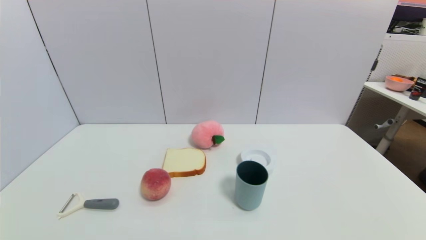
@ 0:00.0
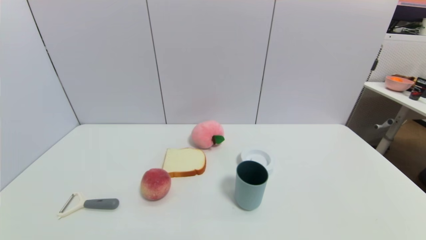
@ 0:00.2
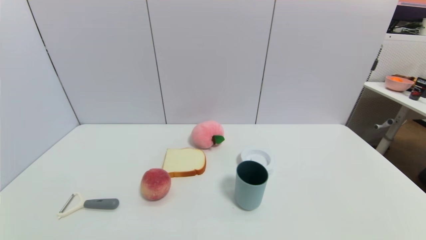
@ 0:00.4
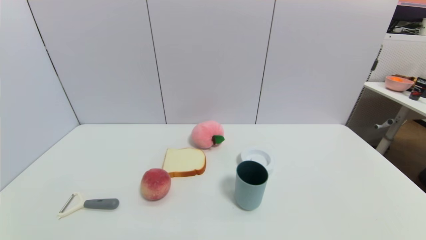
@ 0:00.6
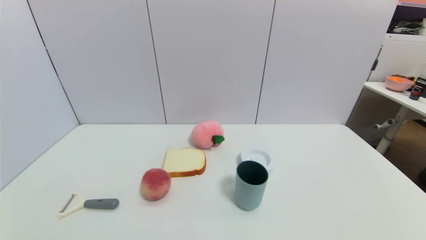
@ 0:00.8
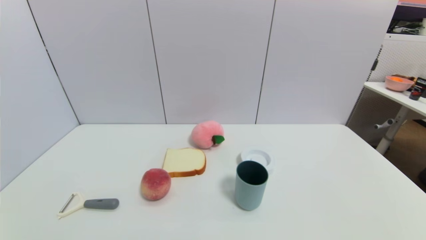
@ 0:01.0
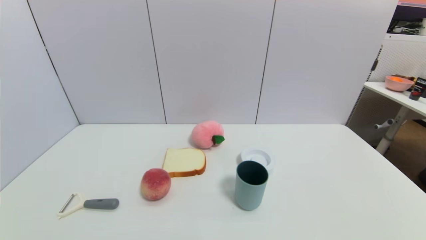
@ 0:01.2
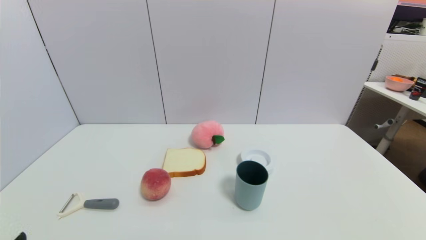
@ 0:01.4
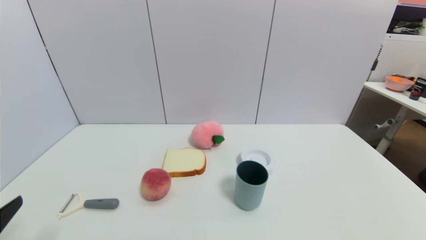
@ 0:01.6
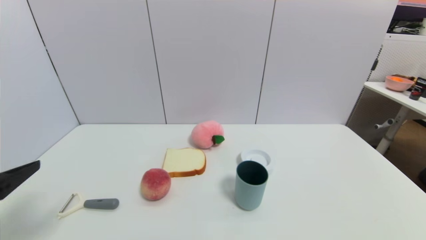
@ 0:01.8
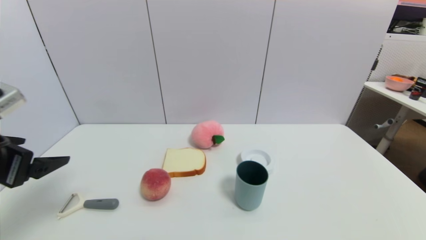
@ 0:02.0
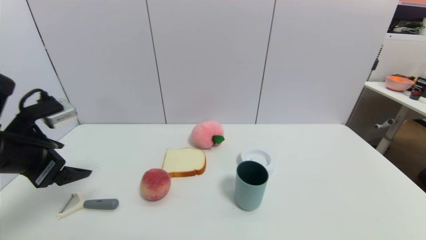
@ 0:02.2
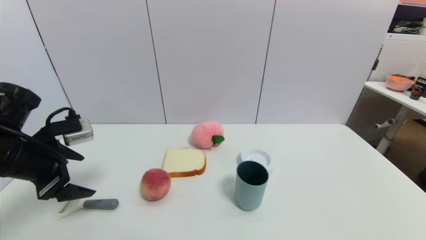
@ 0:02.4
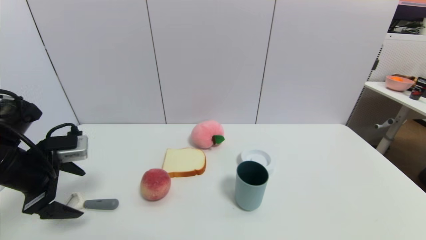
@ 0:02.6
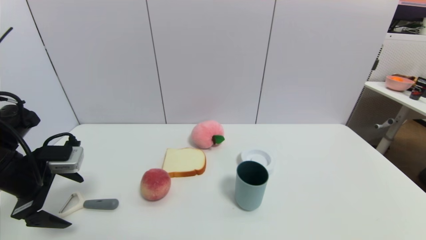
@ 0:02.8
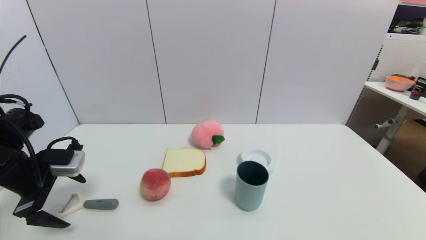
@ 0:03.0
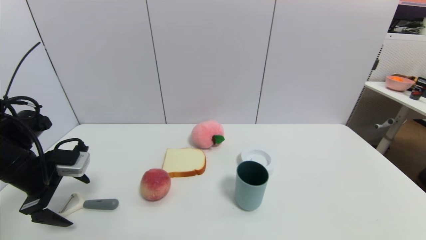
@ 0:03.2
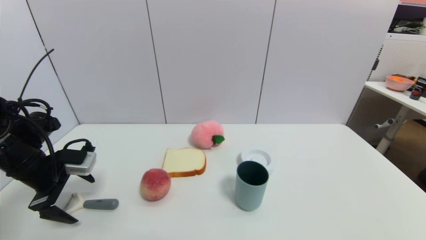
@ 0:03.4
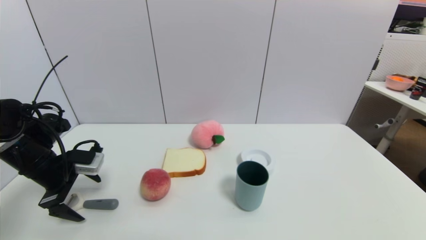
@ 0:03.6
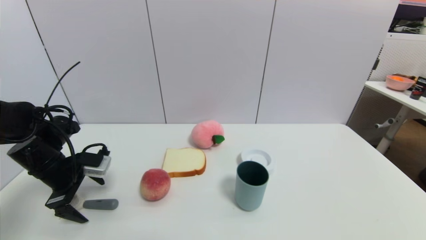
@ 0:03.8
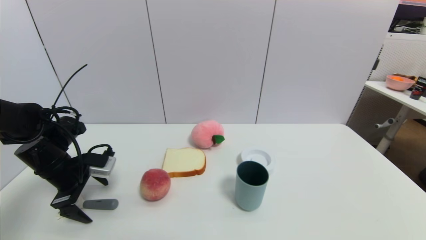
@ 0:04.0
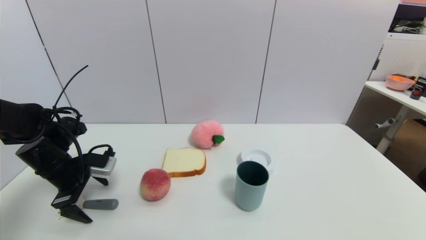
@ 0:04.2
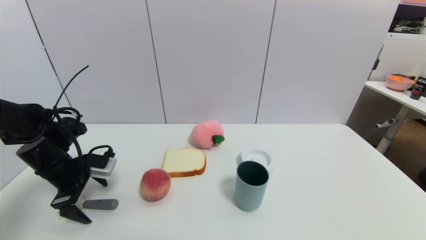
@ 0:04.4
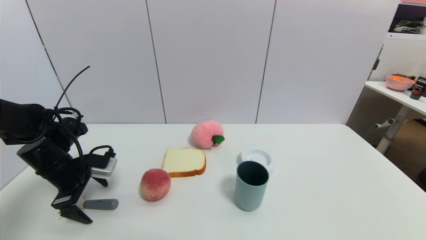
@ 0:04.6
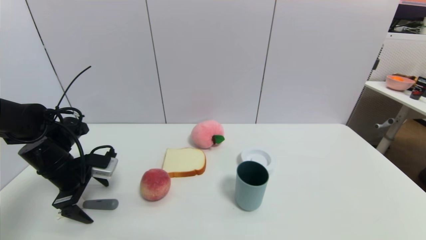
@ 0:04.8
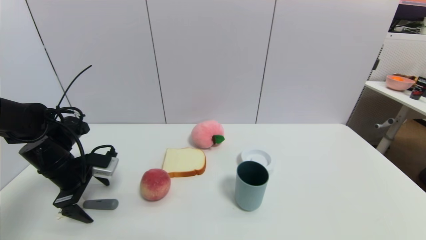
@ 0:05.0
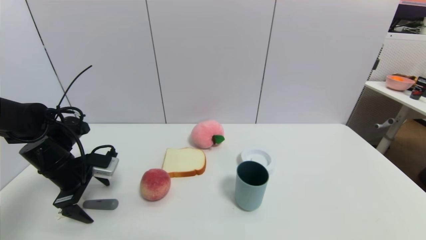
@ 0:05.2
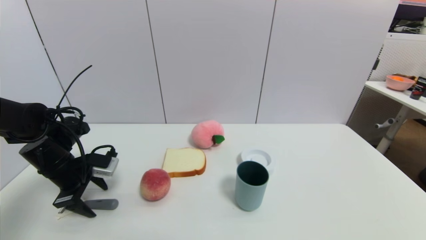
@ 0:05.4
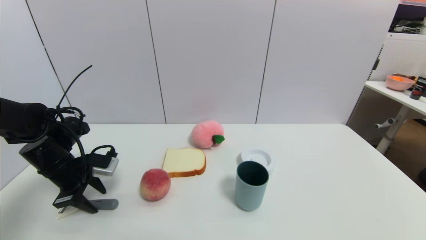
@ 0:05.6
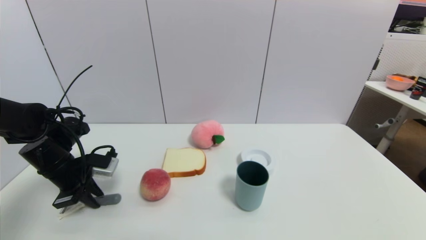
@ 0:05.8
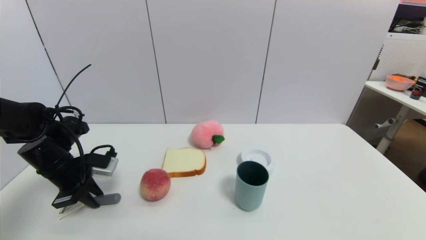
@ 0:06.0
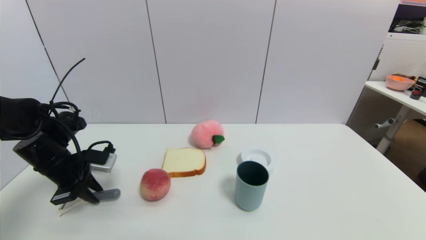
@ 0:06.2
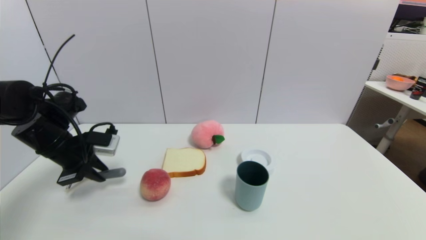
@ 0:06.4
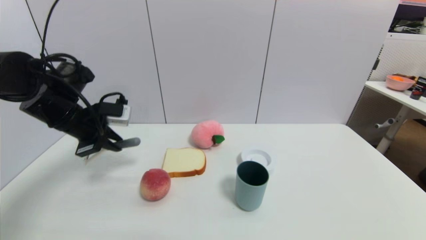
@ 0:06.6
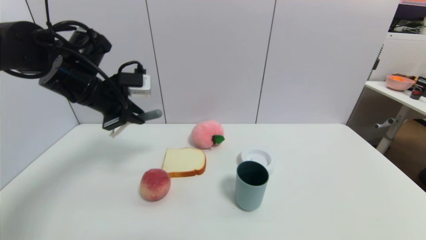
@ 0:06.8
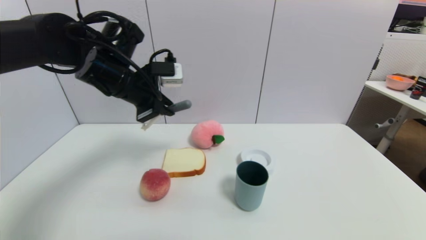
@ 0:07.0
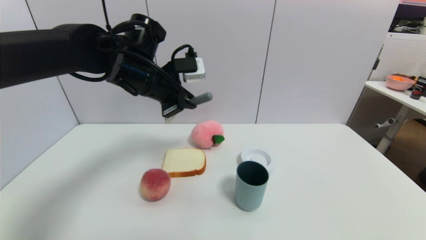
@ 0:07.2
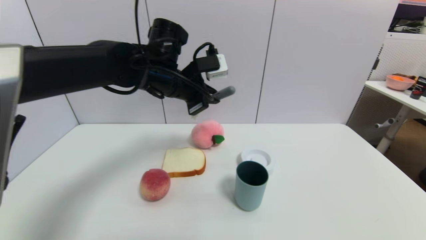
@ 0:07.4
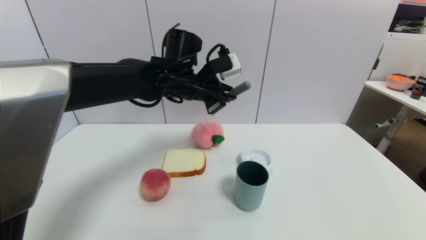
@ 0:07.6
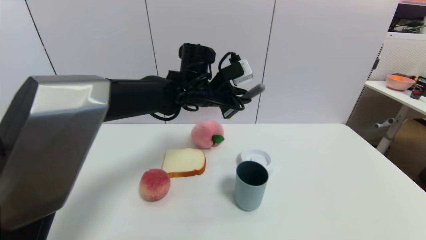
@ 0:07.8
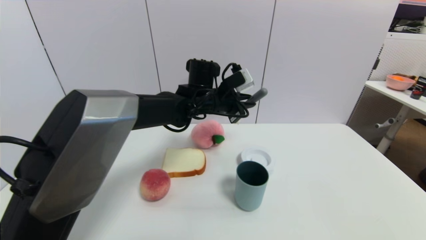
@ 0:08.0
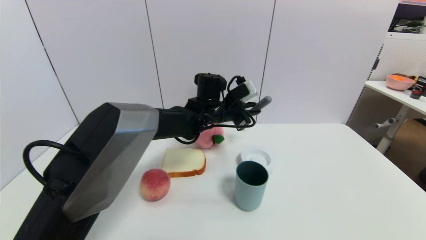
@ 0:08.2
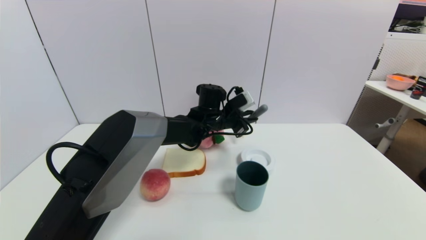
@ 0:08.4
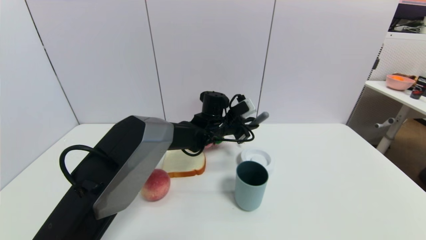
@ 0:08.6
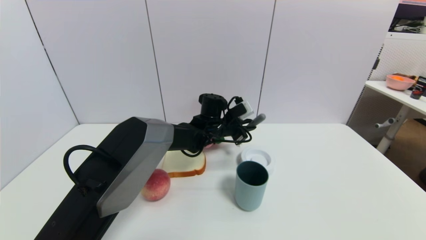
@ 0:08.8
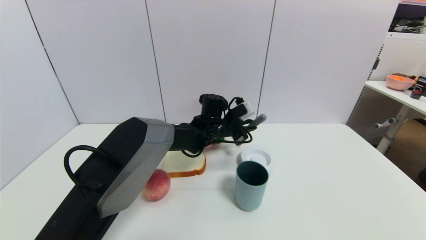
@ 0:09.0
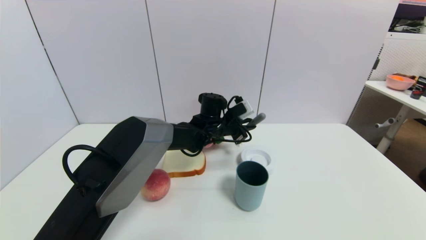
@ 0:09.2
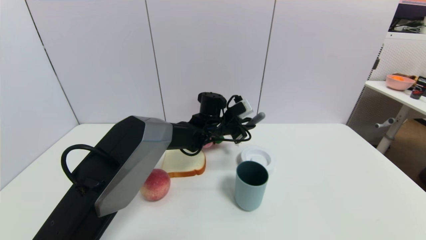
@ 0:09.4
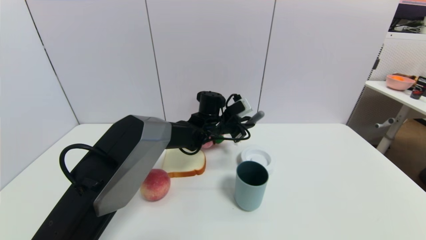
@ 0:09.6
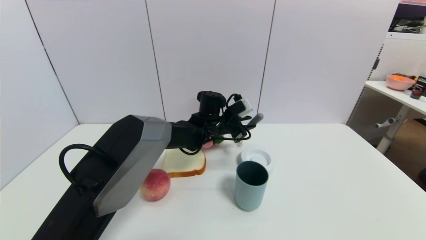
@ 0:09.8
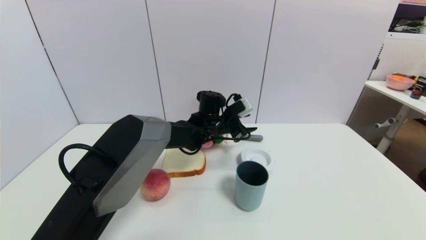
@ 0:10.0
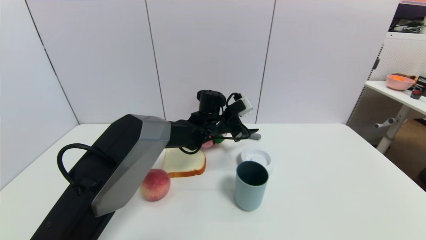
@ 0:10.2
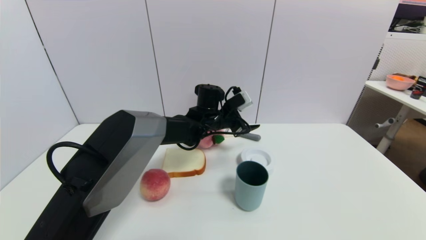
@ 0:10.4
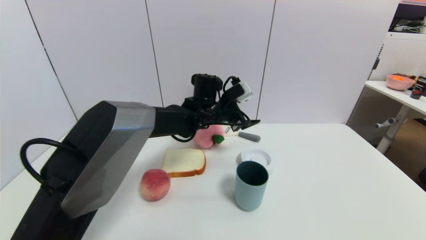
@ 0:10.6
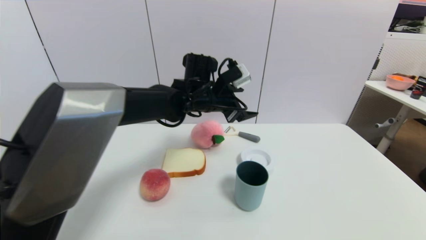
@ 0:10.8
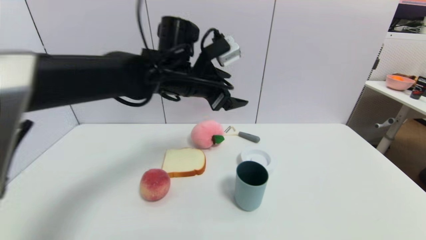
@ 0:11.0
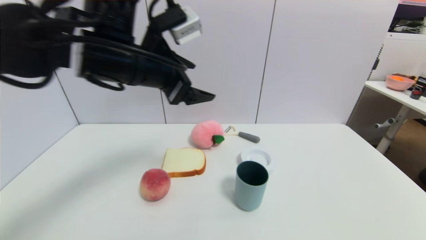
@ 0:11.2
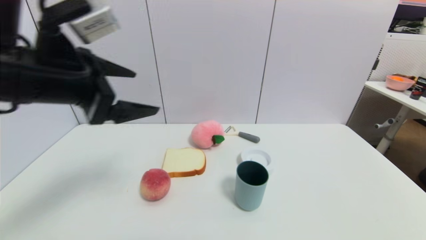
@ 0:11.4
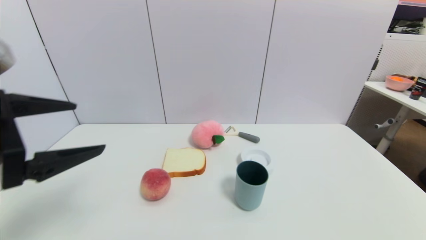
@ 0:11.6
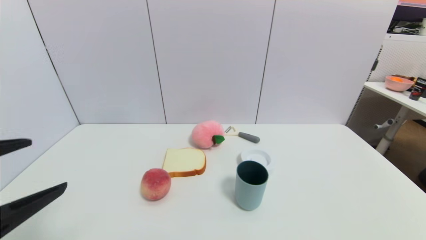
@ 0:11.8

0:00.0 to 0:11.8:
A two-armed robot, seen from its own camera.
Step, 0:01.4 to 0:06.4: Grasp the peeler with left gripper.
Step, 0:06.6 to 0:10.4: Place the peeler on the table with left gripper.
0:01.4 to 0:03.0: The left gripper shifts approximately 25 cm forward.
0:03.0 to 0:04.4: The left gripper shifts about 5 cm forward.
0:04.4 to 0:06.0: The left gripper closes.
0:06.0 to 0:07.4: The left gripper goes roughly 30 cm to the right and upward.
0:07.4 to 0:08.8: The left gripper goes roughly 20 cm downward, to the right and forward.
0:08.8 to 0:10.4: The left gripper opens up.
0:10.4 to 0:11.8: The left gripper travels backward and to the left by about 50 cm.

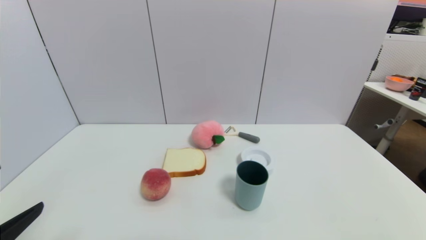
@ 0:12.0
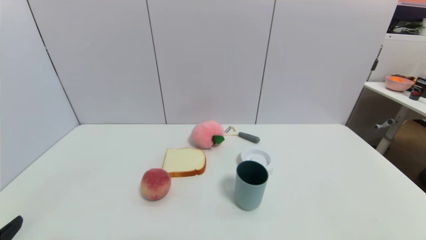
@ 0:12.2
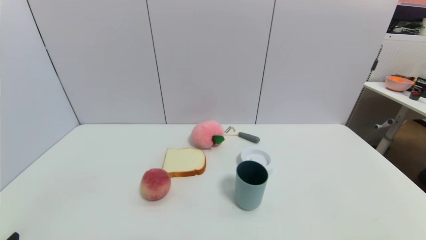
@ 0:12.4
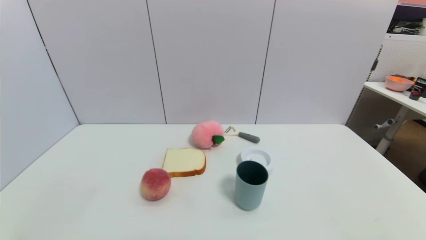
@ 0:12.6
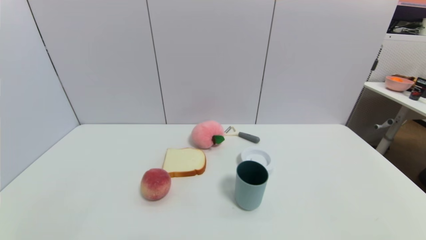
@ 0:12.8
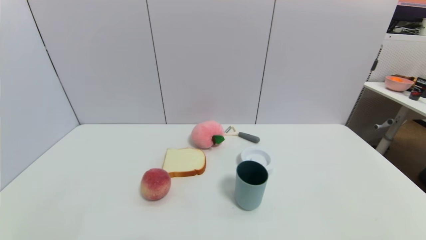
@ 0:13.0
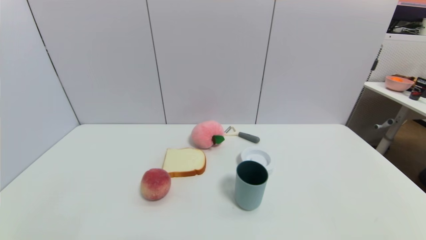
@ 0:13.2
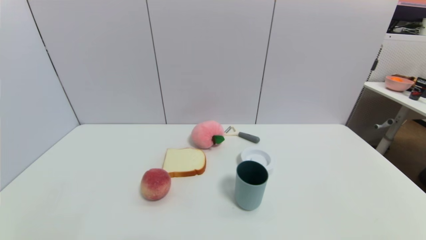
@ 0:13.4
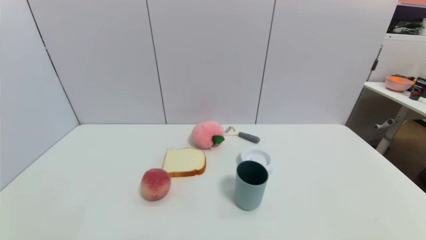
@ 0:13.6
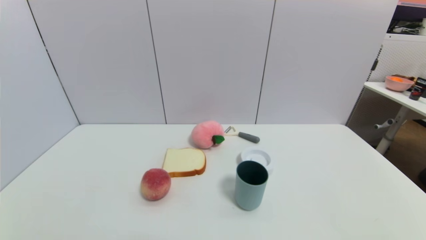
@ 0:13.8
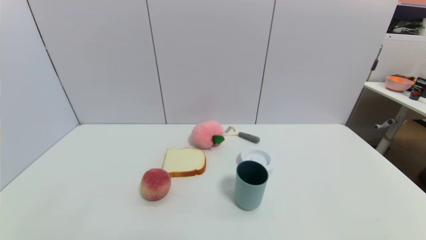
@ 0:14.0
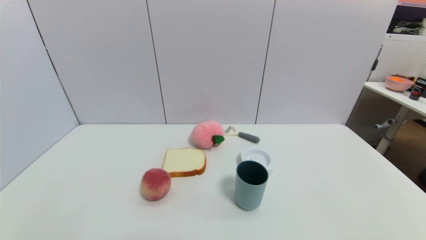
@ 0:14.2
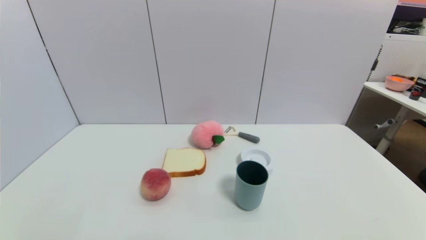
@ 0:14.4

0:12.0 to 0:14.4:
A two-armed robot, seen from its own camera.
0:12.0 to 0:13.2: The left gripper heads downward, covering roughly 15 cm.
0:13.2 to 0:14.4: Neither gripper changes place.

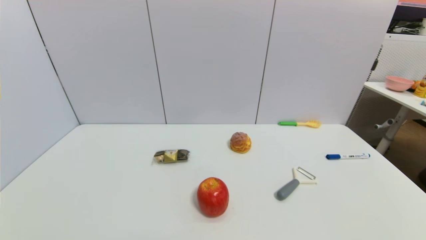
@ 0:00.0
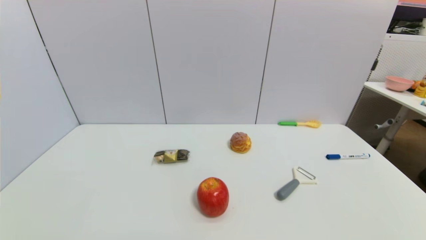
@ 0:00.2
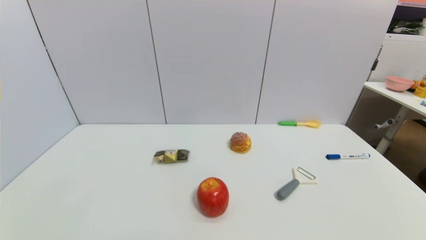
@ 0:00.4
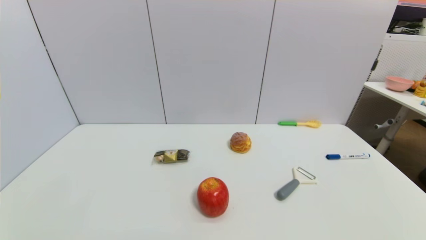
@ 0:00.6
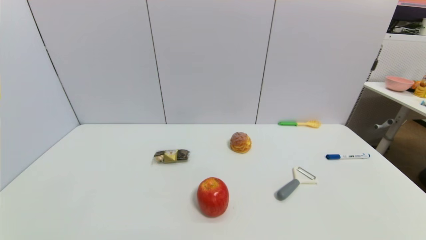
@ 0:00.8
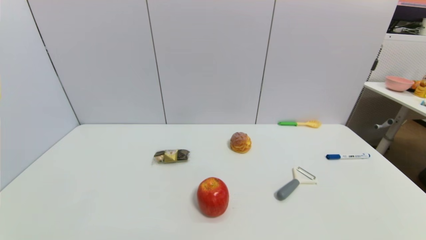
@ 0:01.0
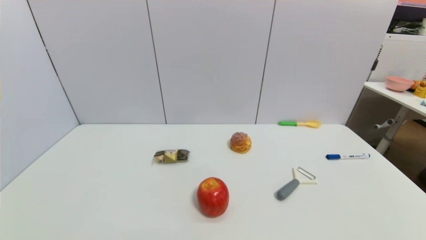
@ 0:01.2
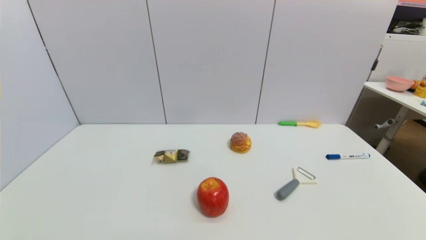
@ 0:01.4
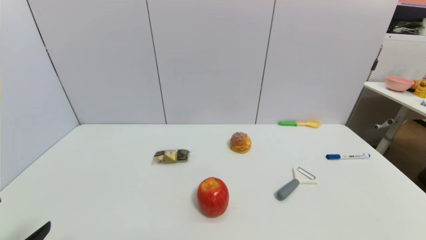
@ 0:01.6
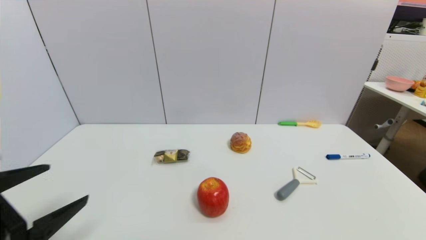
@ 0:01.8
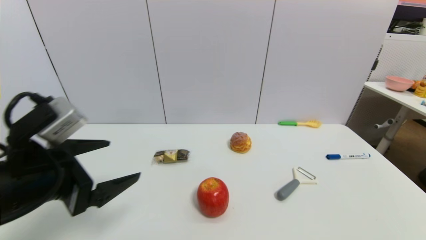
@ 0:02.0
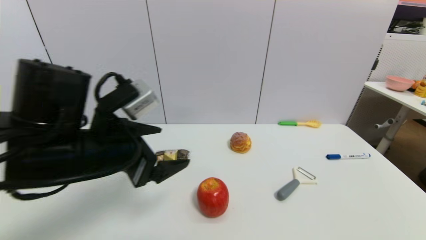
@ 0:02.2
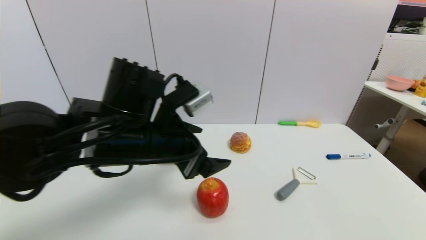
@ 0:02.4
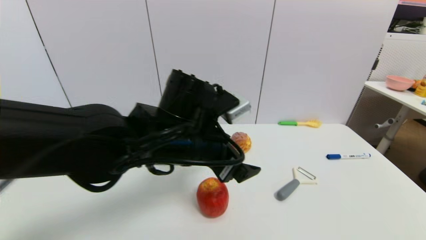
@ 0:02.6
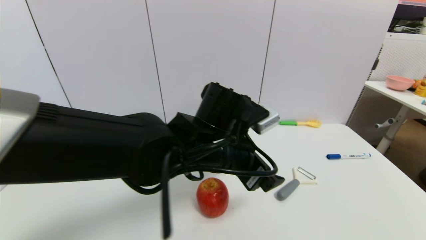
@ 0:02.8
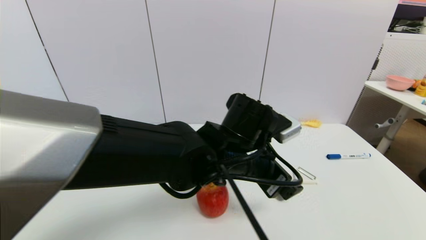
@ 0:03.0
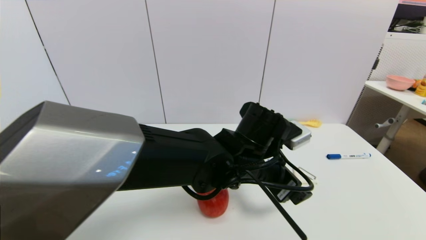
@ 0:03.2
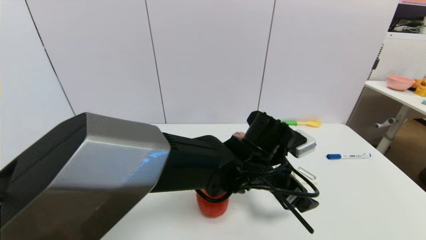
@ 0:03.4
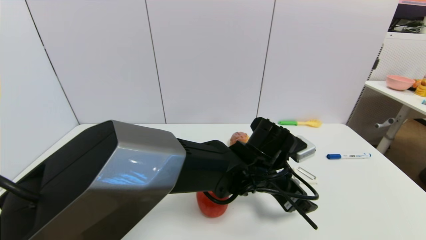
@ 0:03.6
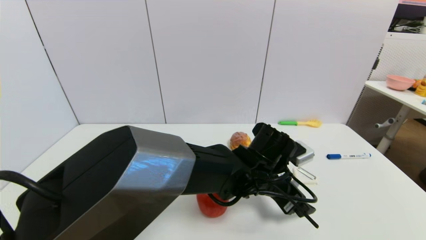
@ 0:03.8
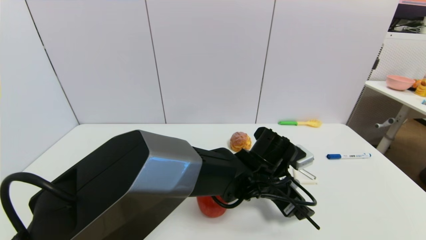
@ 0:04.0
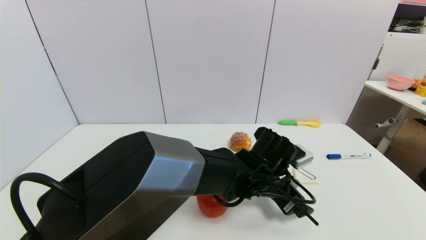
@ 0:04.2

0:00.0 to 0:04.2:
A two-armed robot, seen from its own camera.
0:01.4 to 0:02.8: The left gripper is displaced to the right and forward by about 40 cm.
0:02.8 to 0:04.2: The left gripper shifts about 15 cm downward and to the right.
